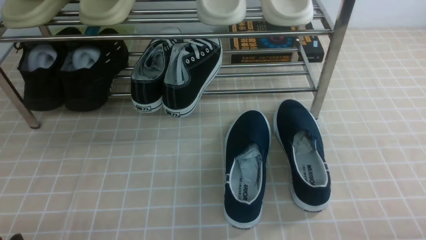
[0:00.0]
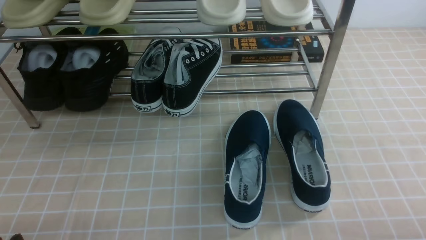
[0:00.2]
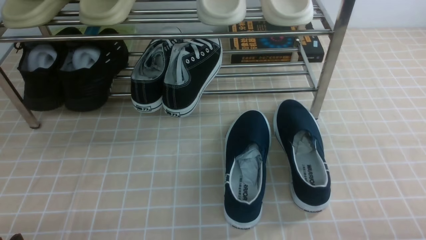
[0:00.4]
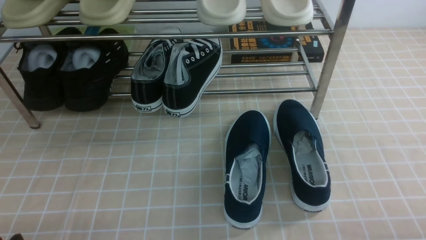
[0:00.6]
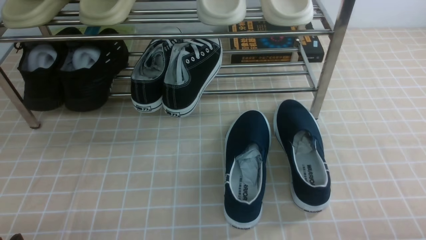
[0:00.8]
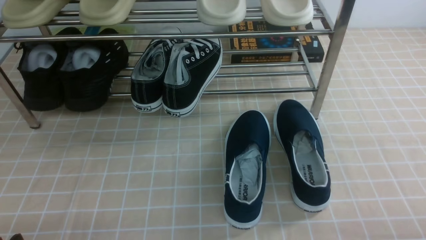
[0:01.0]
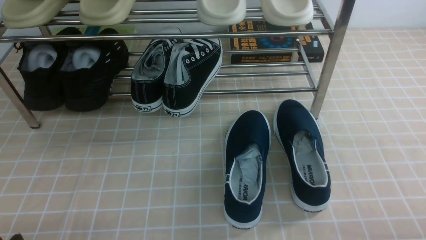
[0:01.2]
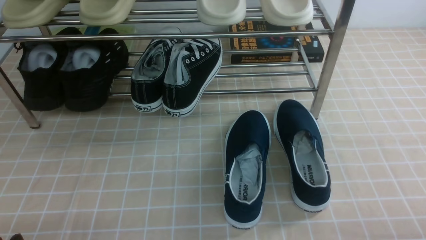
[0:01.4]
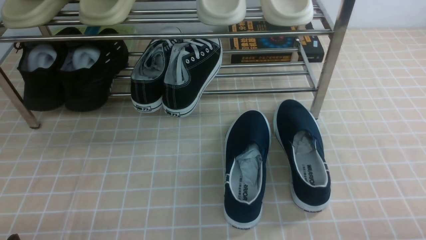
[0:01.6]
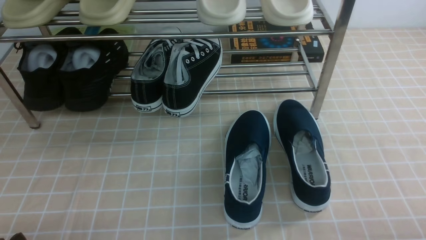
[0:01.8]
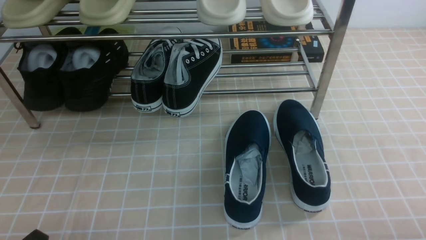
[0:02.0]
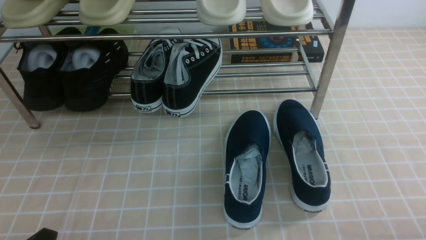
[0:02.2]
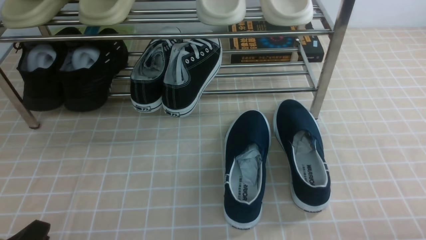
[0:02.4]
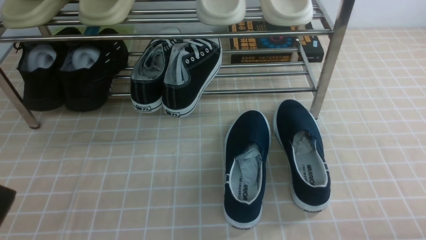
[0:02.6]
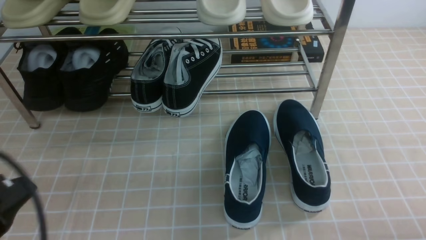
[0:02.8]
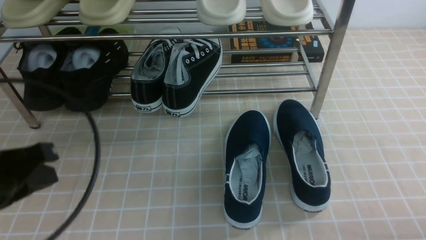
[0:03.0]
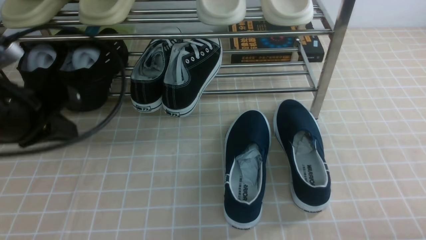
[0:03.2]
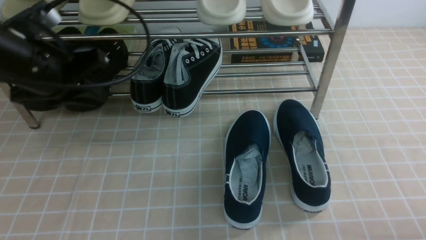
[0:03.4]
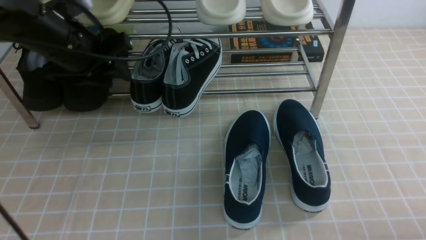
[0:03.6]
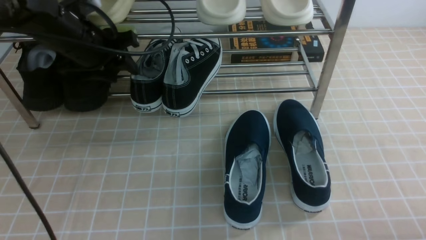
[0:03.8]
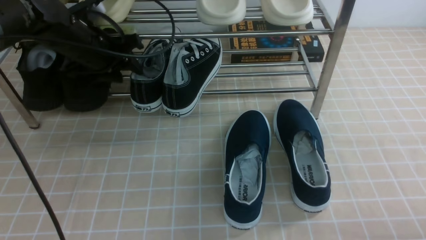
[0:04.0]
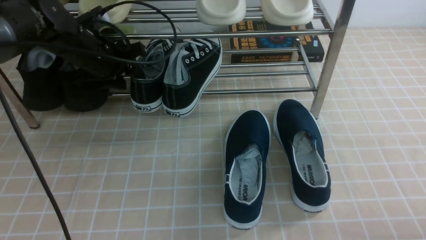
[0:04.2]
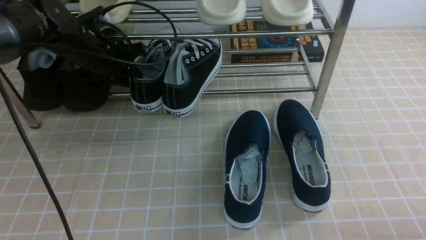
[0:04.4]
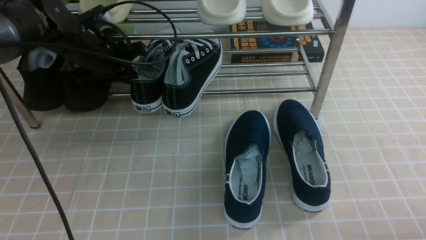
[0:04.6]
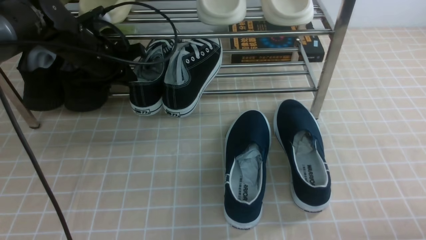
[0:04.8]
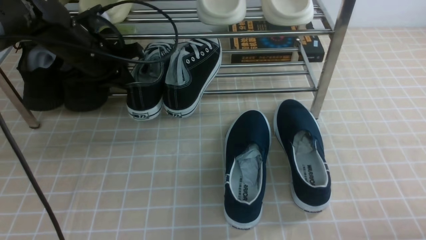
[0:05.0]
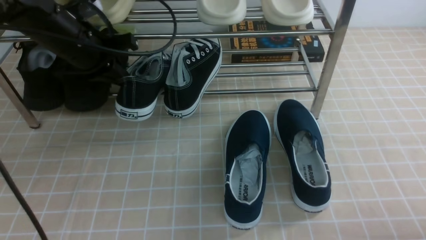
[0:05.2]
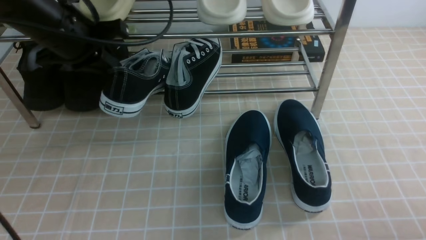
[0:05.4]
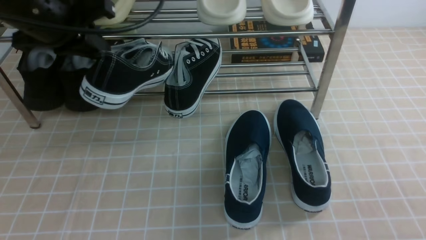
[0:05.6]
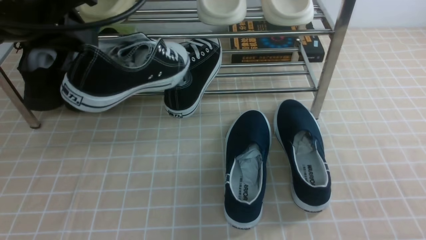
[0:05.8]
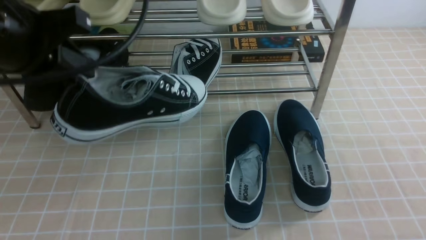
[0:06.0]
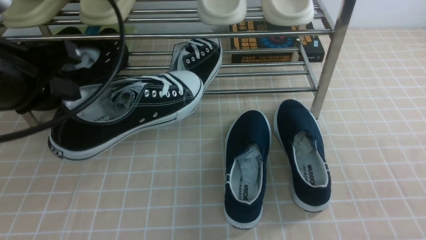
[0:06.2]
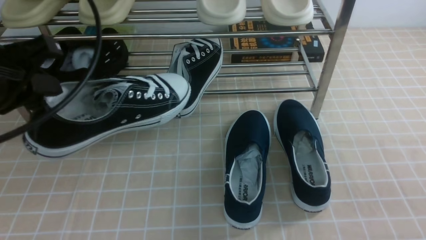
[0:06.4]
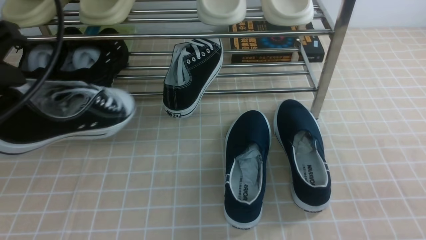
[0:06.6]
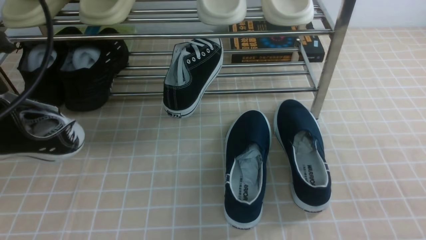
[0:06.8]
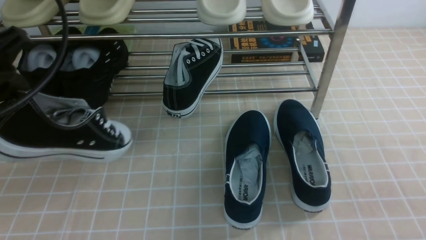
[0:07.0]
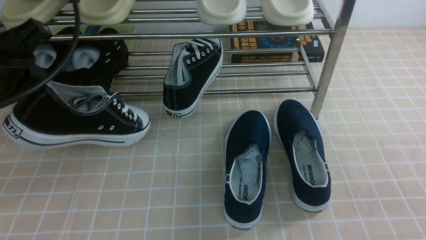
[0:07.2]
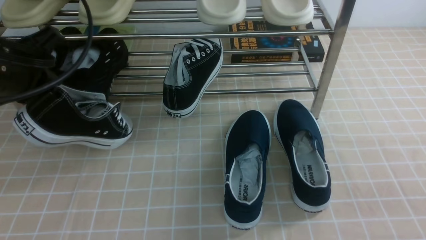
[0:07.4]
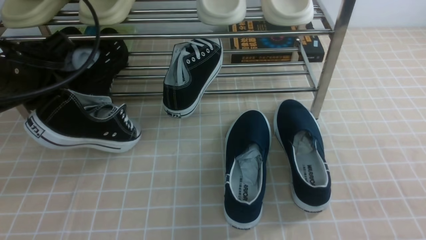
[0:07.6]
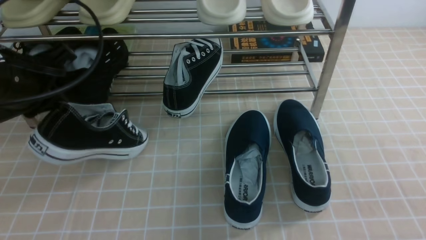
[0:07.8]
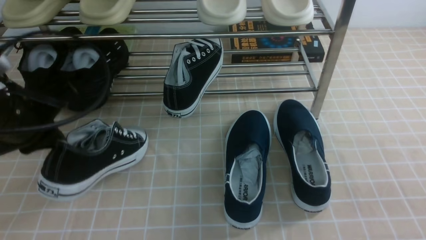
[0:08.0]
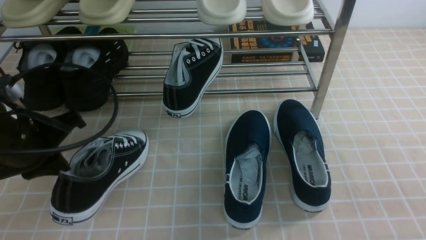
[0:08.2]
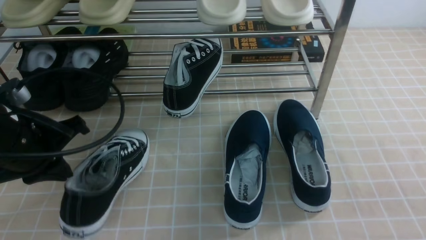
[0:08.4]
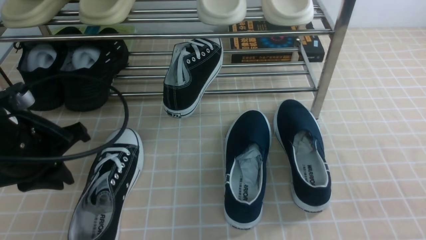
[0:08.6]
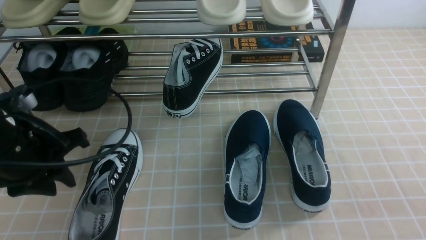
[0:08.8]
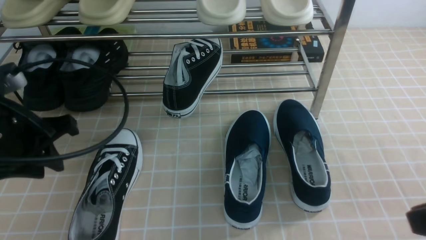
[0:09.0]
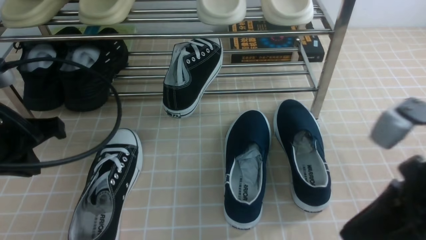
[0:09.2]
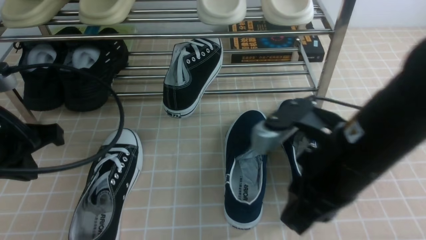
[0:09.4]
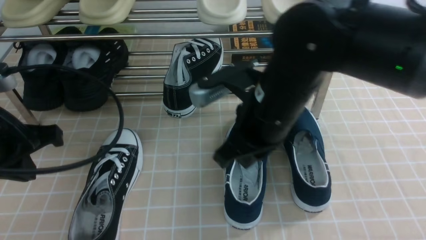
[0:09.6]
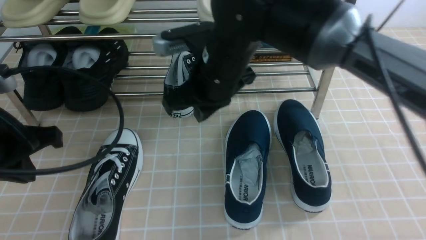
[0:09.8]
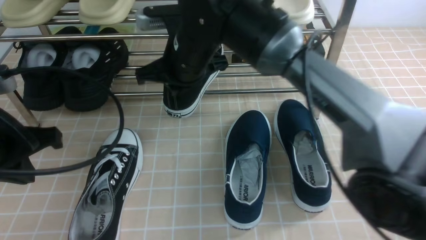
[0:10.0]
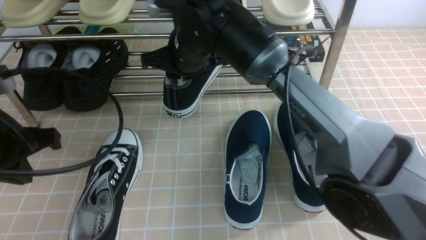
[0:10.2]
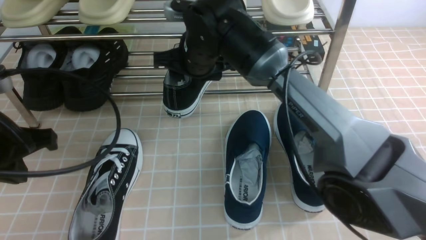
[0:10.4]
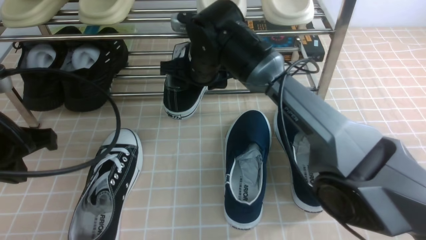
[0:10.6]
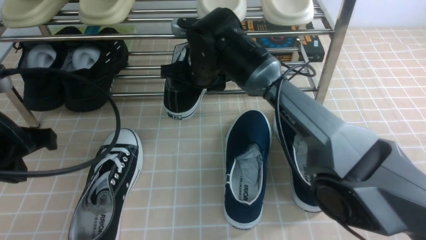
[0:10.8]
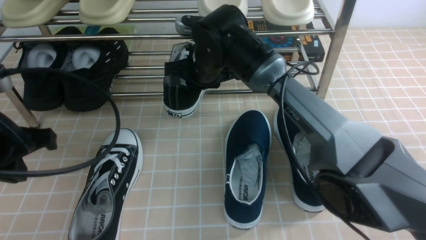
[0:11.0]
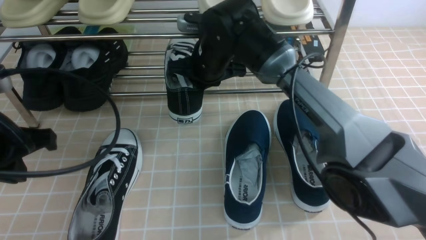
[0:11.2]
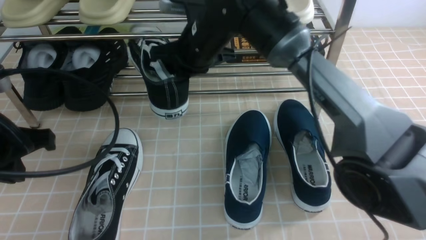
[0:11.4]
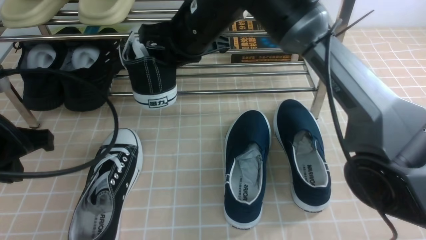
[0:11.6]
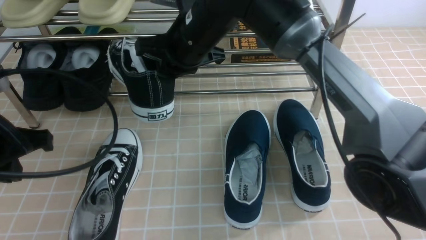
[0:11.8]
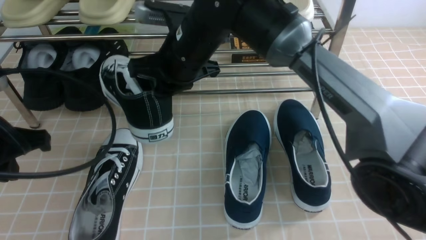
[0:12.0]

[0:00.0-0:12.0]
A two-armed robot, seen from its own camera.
Step, 0:00.0 to 0:04.8: use the left arm to clamp a shoe in the middle of the shoe rack.
Step, 0:05.0 to 0:08.8: Use your left arm to remove the clamped shoe from the shoe rack and put it down.
Step, 0:09.0 to 0:11.0: use the right arm to clamp a shoe in the middle of the shoe rack.
0:00.0 to 0:01.6: Both grippers stay about where they are.
0:01.6 to 0:03.0: The left gripper heads upward and forward, covering approximately 20 cm, and closes.
0:03.0 to 0:04.4: The left gripper shifts about 25 cm forward, and opens its fingers.
0:04.4 to 0:06.0: The right gripper is displaced upward by about 15 cm, and closes its fingers. Meanwhile the left gripper moves backward and upward, approximately 25 cm, and closes up.
0:06.0 to 0:07.6: The left gripper moves downward, about 5 cm.
0:07.6 to 0:09.0: The left gripper changes place by some 5 cm, and opens up.
0:09.0 to 0:10.4: The right gripper is displaced forward and to the left by about 40 cm, and opens up; the left gripper closes up.
0:10.4 to 0:12.0: The right gripper ends up roughly 5 cm from where it was, and closes its fingers.

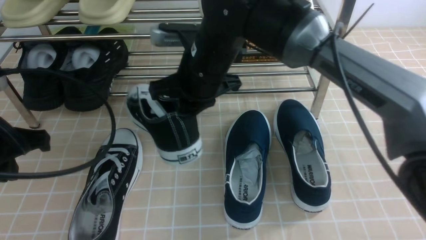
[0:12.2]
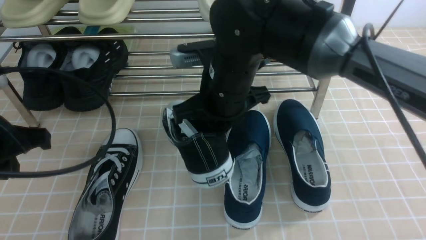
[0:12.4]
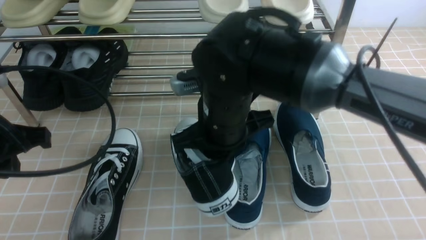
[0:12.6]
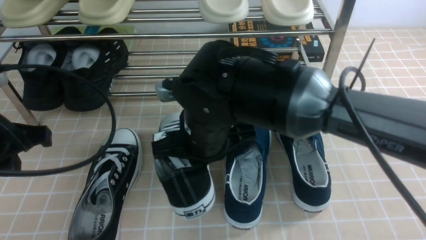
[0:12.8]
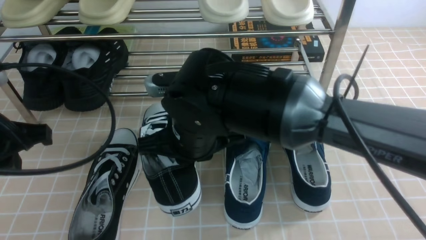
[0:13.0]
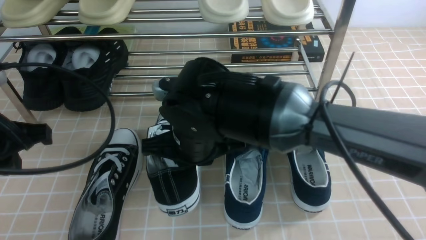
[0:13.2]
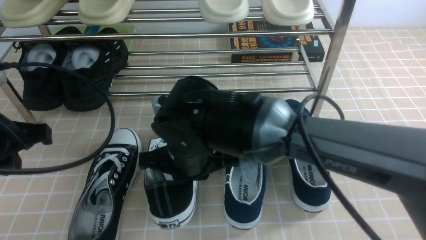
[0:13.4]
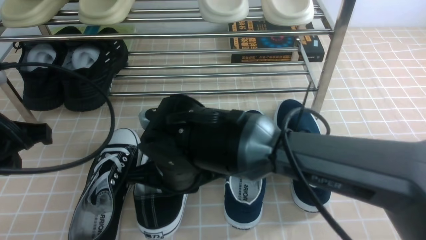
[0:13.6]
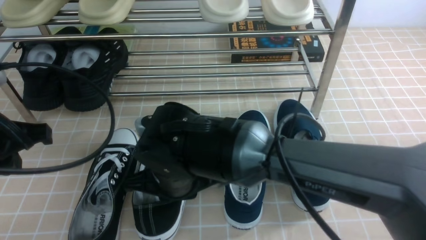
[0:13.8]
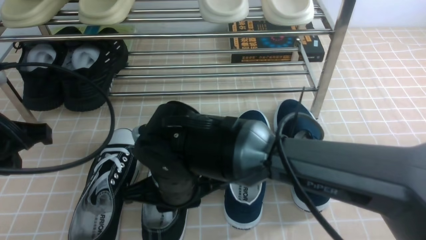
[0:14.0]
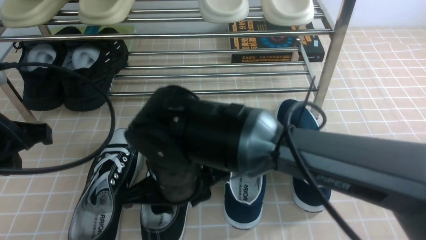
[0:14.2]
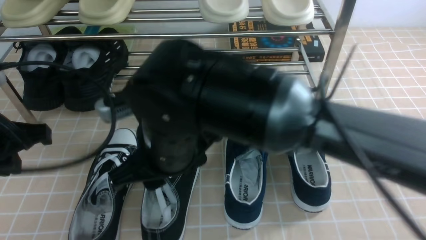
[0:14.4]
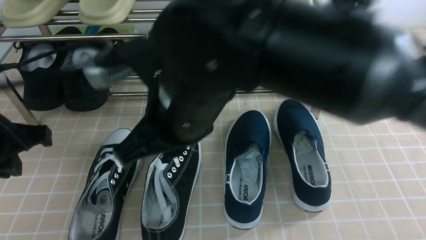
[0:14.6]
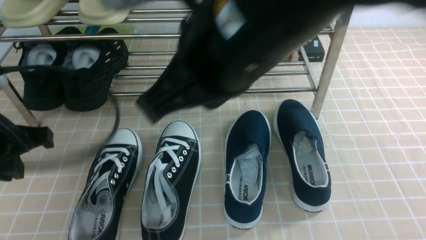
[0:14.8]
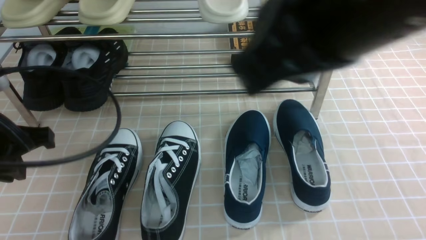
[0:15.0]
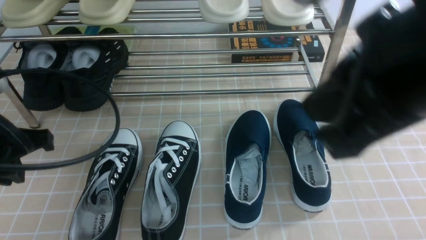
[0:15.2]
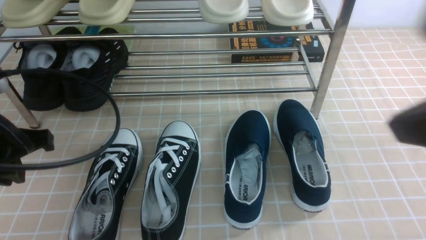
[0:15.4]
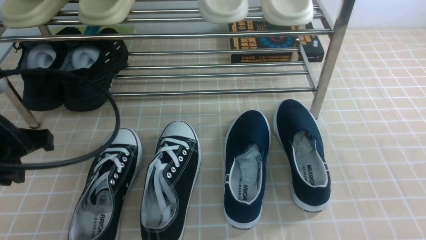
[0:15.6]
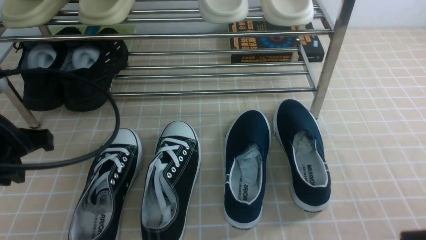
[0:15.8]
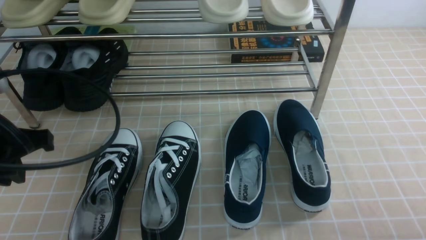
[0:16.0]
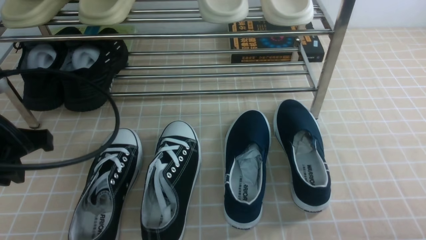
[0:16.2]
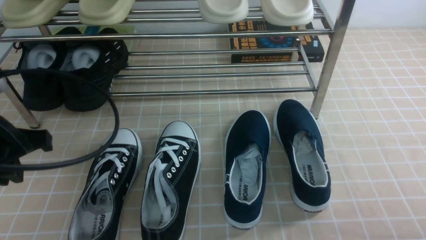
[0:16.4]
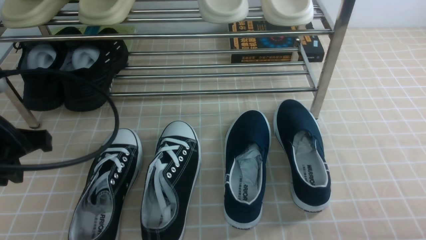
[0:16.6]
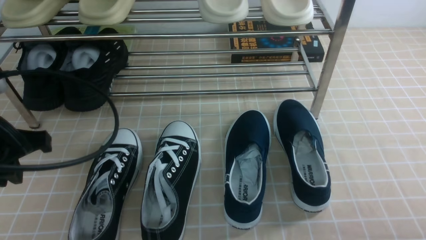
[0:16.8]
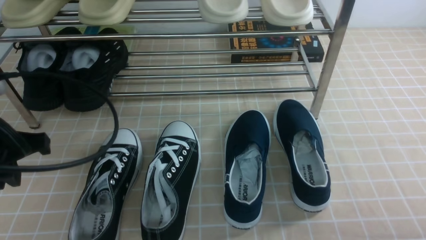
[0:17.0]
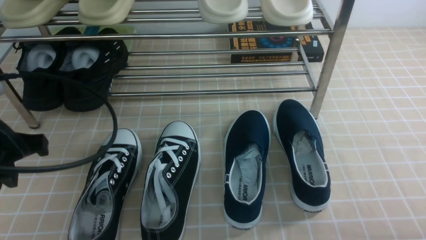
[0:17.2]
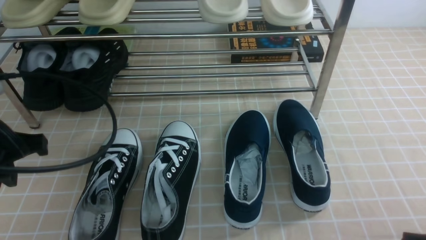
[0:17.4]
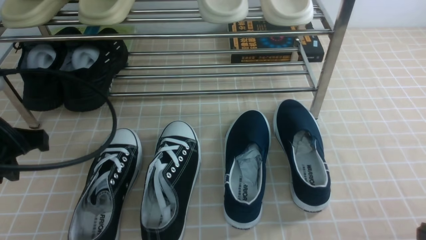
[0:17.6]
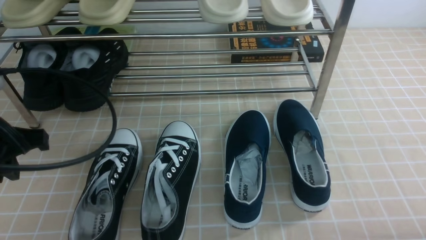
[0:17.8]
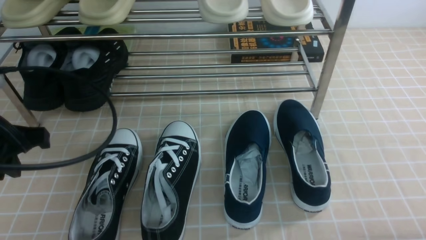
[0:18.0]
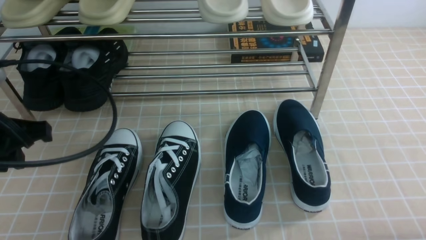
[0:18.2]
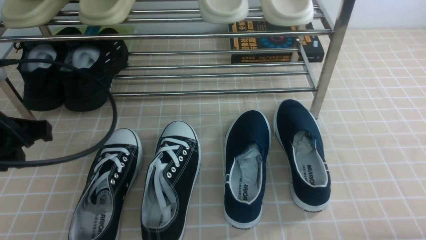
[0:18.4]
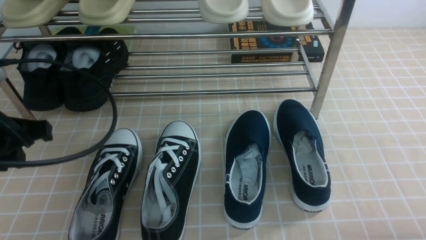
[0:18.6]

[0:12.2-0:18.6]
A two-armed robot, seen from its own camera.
Step, 0:12.2 to 0:14.4: use the right arm to take out the clamped shoe from the shoe rack and put it down.
0:12.2 to 0:13.8: The right gripper travels backward, downward and to the left by roughly 15 cm.
0:13.8 to 0:15.4: The right gripper moves to the right, upward and backward, approximately 35 cm, and opens, then closes once more.
0:15.4 to 0:17.0: The right gripper heads downward and backward, covering about 15 cm.
